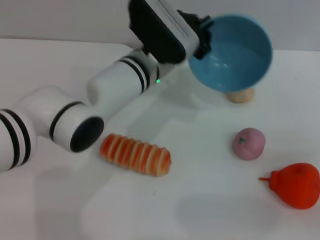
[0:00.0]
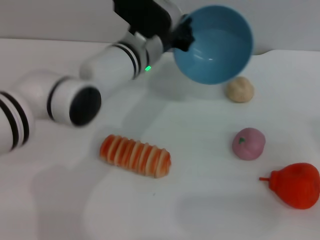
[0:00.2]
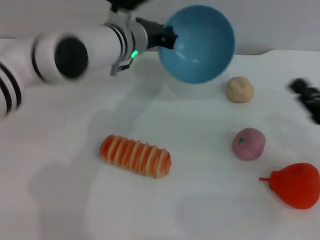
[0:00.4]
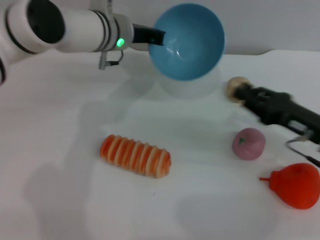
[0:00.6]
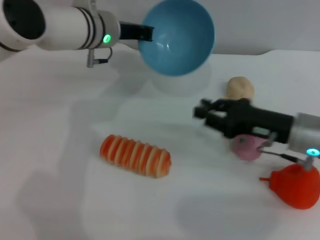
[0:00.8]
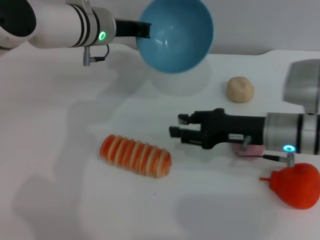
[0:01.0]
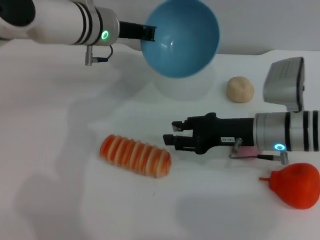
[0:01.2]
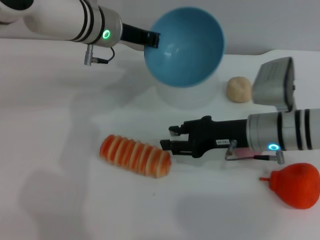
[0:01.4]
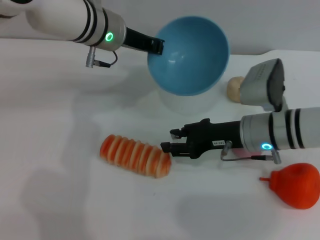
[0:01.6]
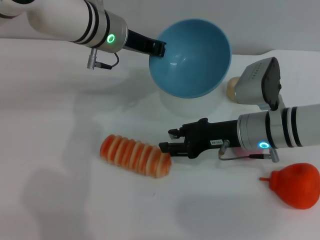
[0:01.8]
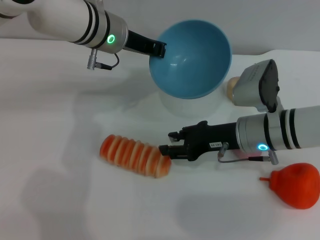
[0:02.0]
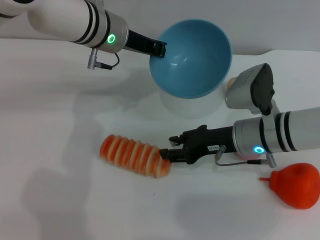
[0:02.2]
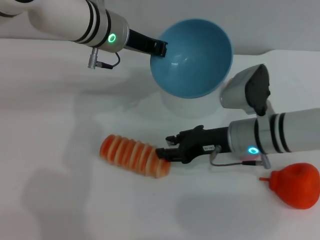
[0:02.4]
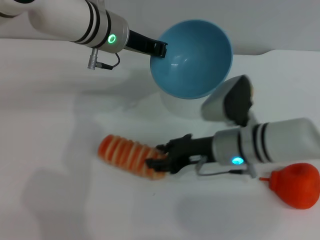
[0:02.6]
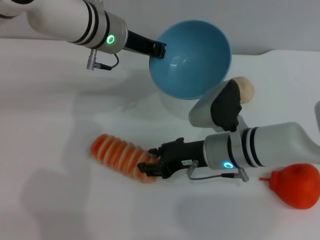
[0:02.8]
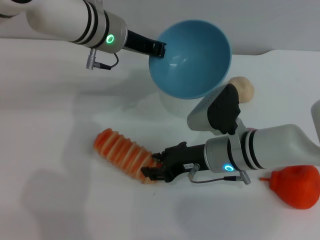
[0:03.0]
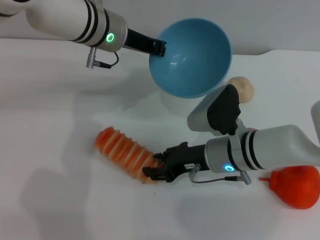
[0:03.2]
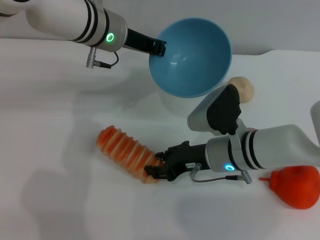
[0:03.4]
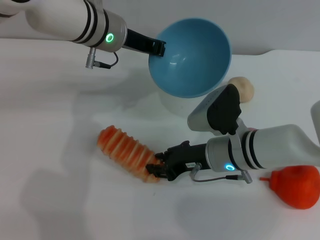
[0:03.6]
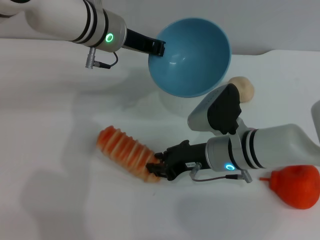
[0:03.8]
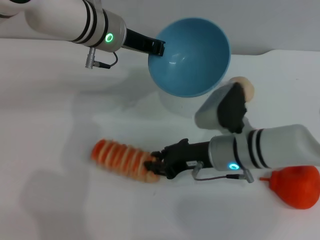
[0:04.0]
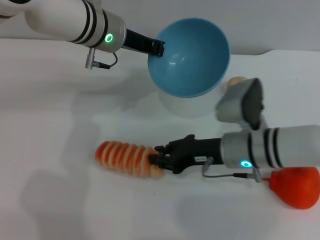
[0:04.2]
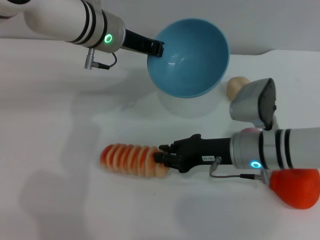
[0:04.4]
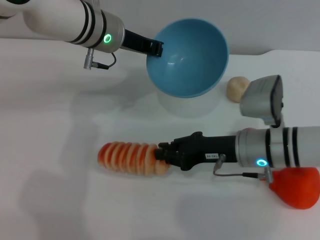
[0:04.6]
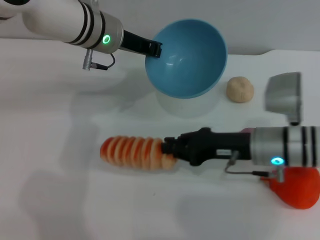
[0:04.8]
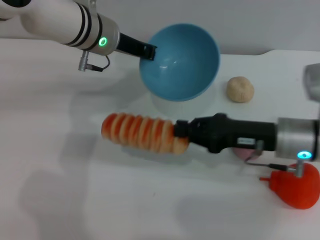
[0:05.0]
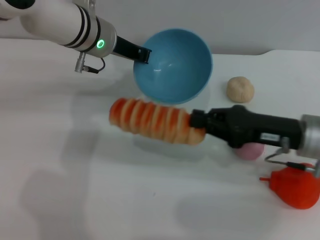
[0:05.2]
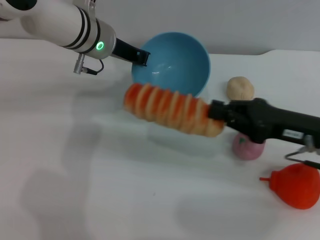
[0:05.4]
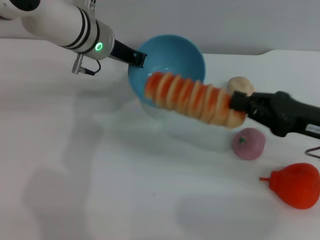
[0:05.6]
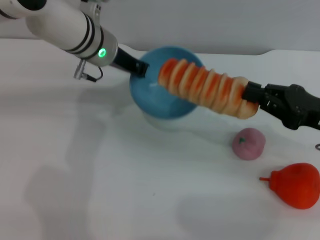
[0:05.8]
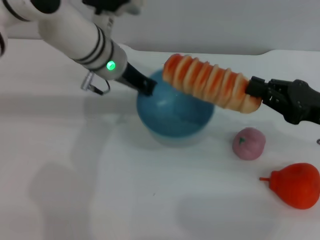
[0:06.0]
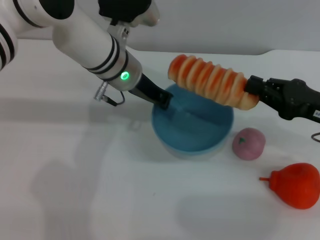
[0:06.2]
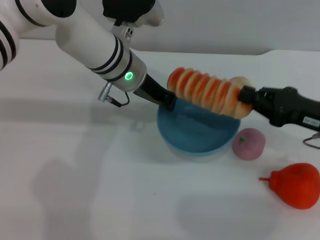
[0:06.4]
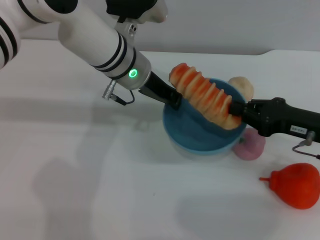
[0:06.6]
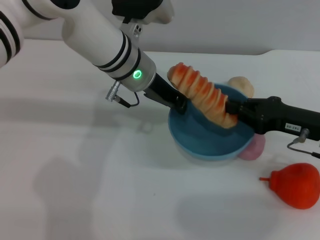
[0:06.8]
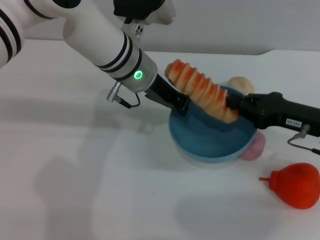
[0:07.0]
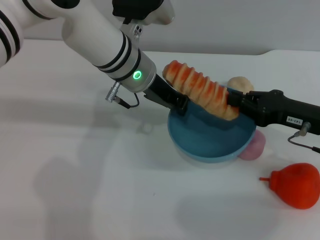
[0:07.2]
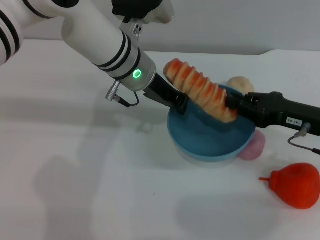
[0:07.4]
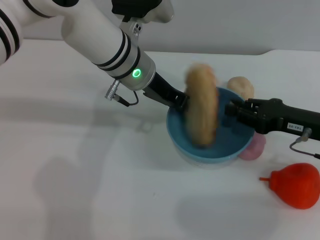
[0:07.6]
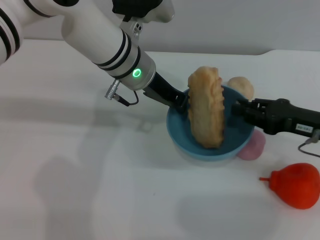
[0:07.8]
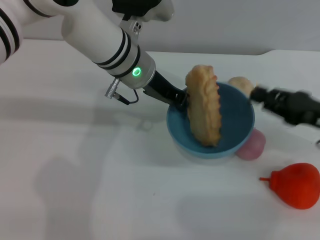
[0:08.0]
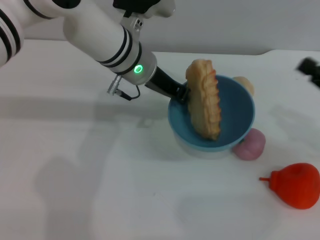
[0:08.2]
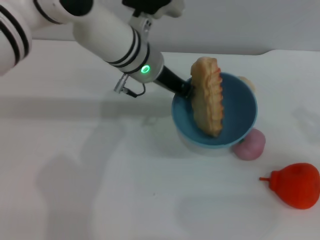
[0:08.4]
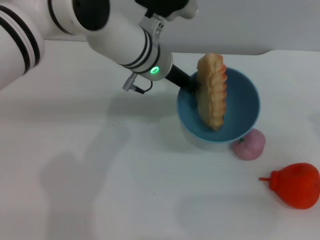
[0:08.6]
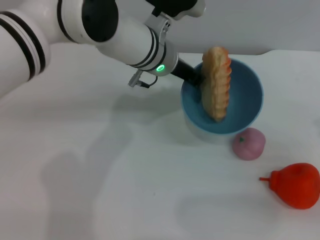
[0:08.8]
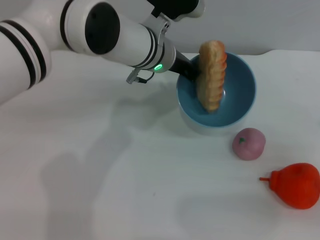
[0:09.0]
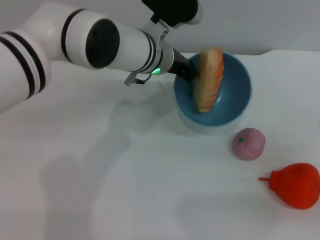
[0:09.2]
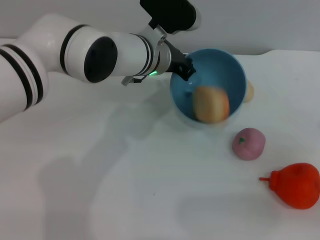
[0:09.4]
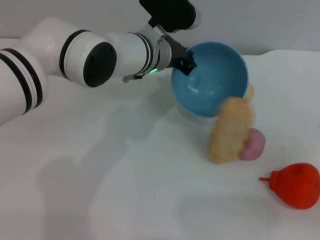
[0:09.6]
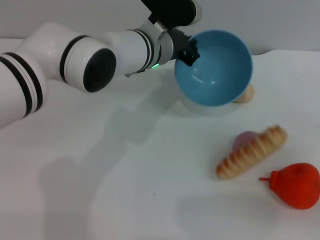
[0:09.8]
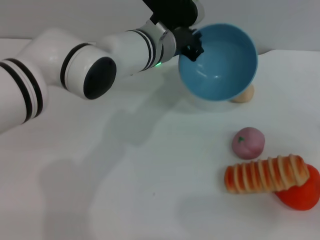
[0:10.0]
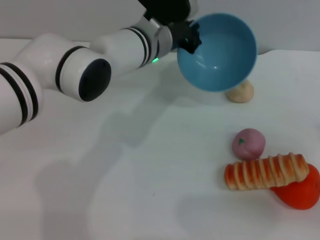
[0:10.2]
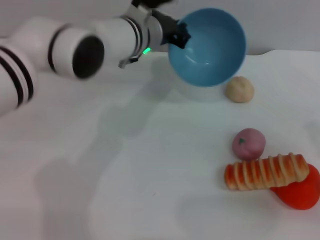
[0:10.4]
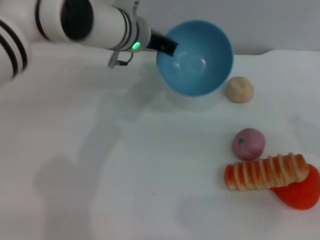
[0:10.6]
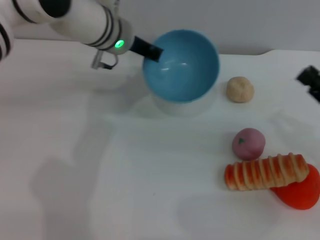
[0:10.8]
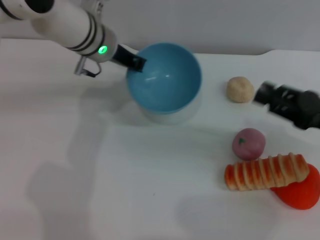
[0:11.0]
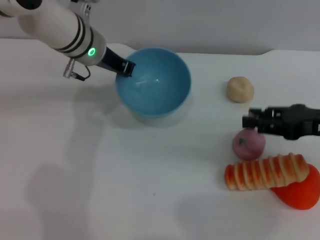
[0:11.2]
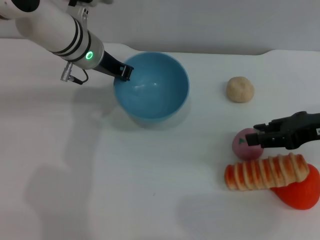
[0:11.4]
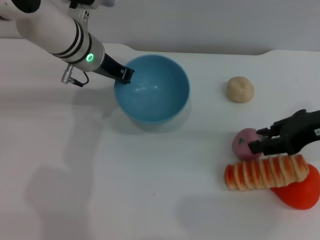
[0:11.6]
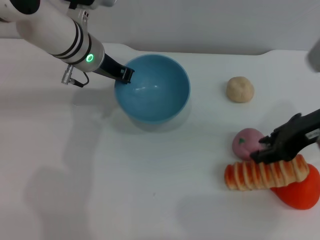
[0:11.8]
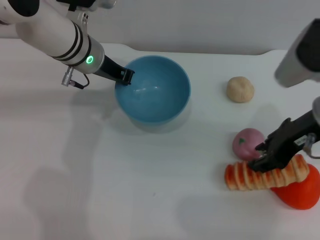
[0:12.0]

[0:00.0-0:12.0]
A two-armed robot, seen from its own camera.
Task of the whole recording: put the bread into the blue bowl and pour it out repeatedly.
Step, 0:00.2 to 0:05.2: Pick up the bread with the right gripper.
Step, 0:05.4 to 0:08.0: Place the bread into the bowl.
Step, 0:08.2 to 0:10.2: Pour the bread out of the bowl.
0:00.0 to 0:01.6: The right gripper heads to the left and forward, covering roughly 25 cm. Meanwhile the left gripper travels to the left and upward by about 10 cm.
0:01.6 to 0:03.0: The right gripper is displaced to the left by approximately 5 cm.
0:03.0 to 0:04.4: The right gripper closes.
0:04.4 to 0:06.0: The right gripper is displaced to the right and upward by roughly 15 cm, and closes.
0:07.6 to 0:09.0: The right gripper travels to the right and backward by approximately 15 cm.
0:10.4 to 0:12.0: The left gripper heads to the left, covering some 10 cm. Meanwhile the right gripper moves to the left, upward and forward, approximately 20 cm.

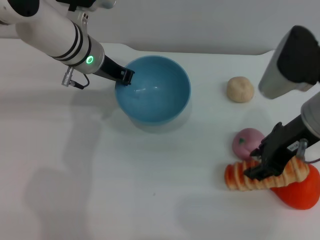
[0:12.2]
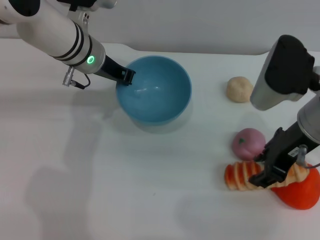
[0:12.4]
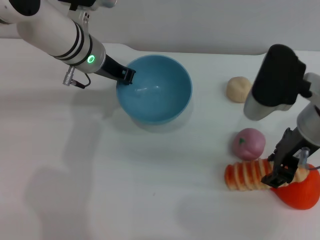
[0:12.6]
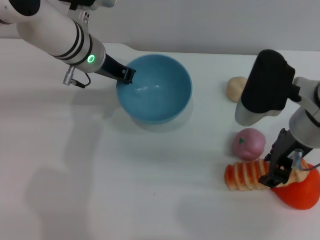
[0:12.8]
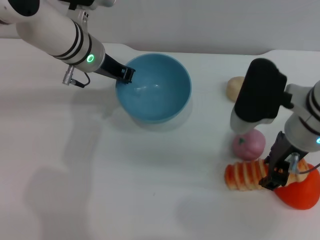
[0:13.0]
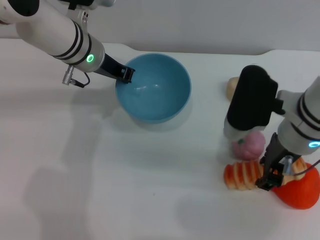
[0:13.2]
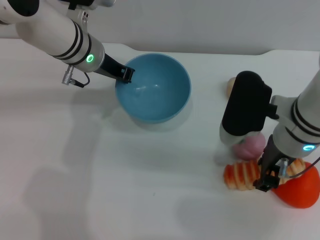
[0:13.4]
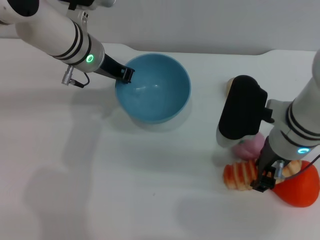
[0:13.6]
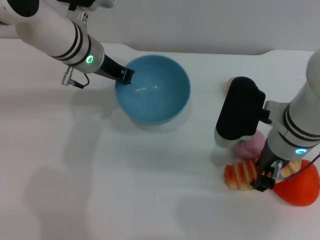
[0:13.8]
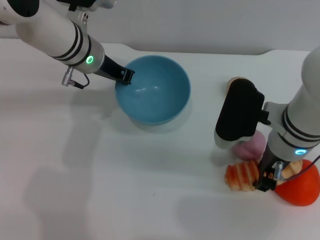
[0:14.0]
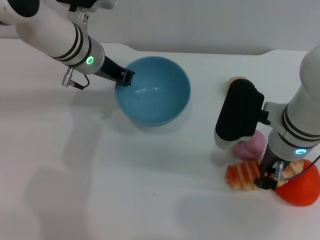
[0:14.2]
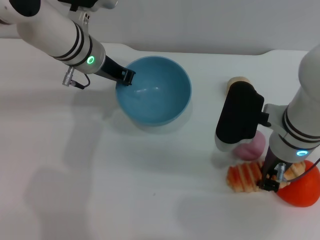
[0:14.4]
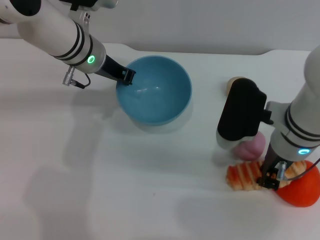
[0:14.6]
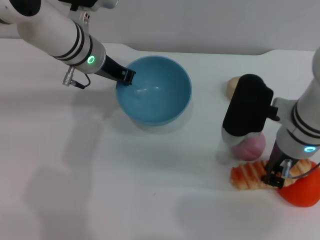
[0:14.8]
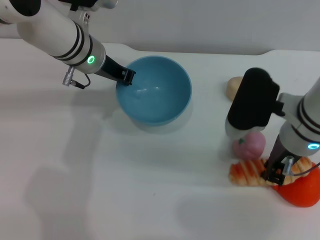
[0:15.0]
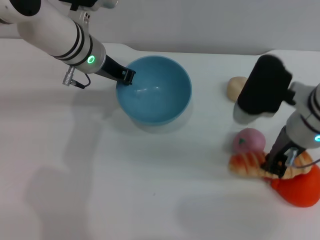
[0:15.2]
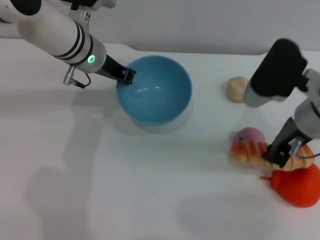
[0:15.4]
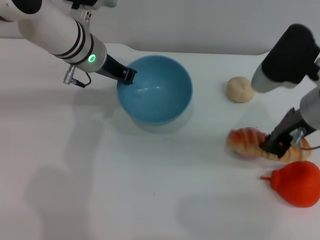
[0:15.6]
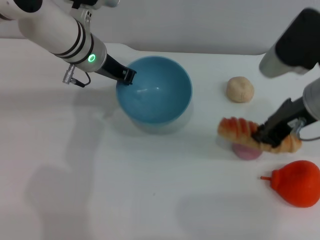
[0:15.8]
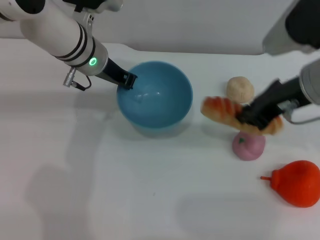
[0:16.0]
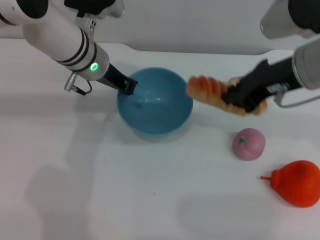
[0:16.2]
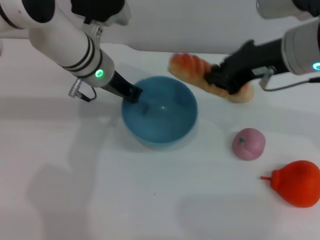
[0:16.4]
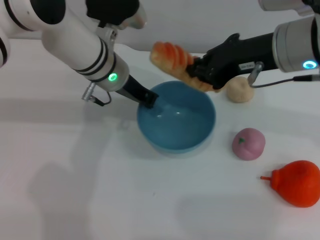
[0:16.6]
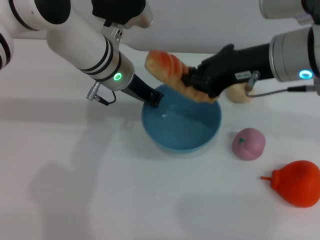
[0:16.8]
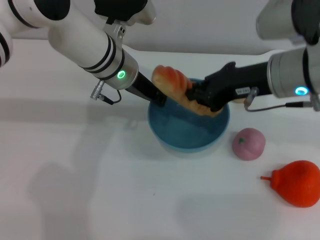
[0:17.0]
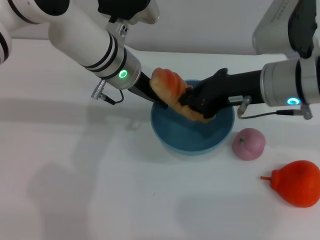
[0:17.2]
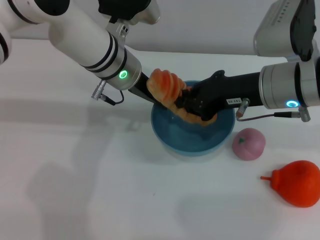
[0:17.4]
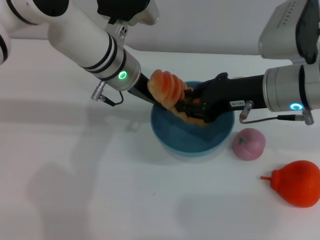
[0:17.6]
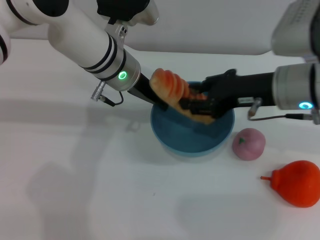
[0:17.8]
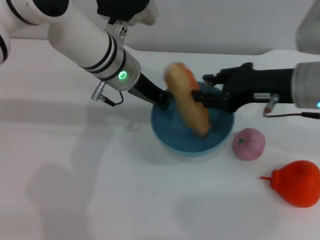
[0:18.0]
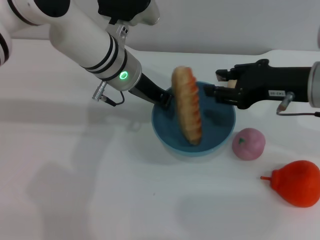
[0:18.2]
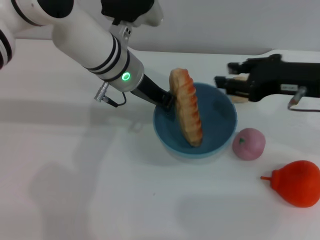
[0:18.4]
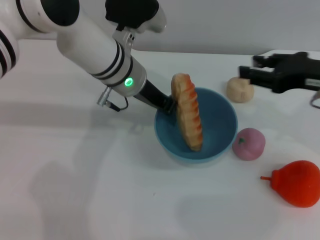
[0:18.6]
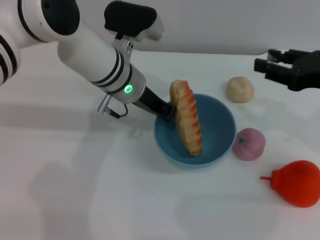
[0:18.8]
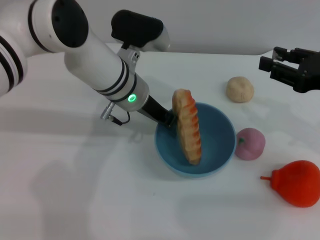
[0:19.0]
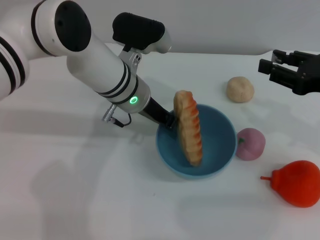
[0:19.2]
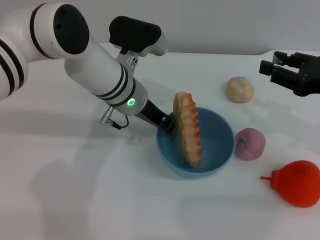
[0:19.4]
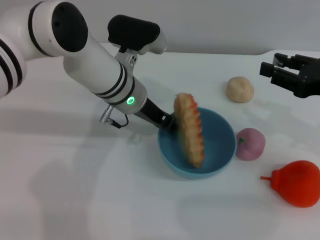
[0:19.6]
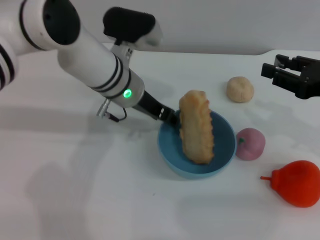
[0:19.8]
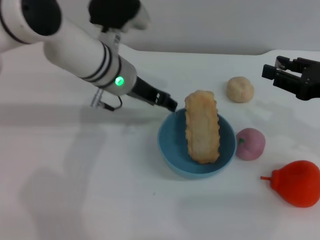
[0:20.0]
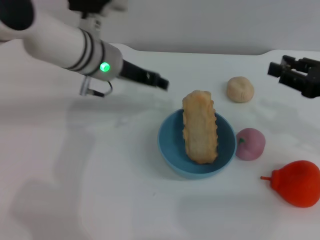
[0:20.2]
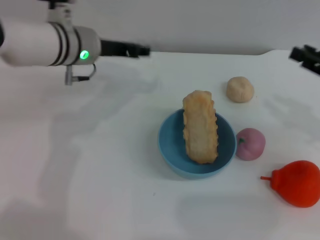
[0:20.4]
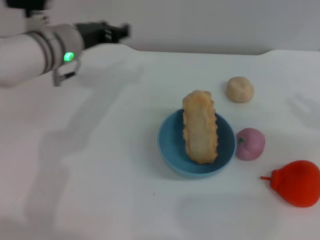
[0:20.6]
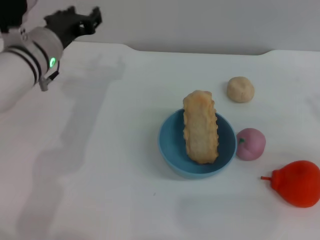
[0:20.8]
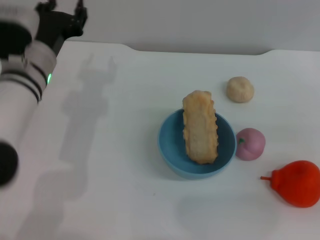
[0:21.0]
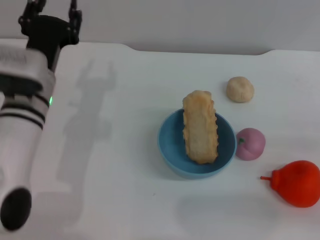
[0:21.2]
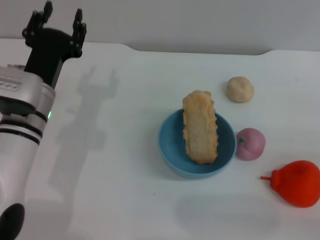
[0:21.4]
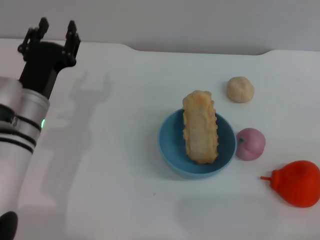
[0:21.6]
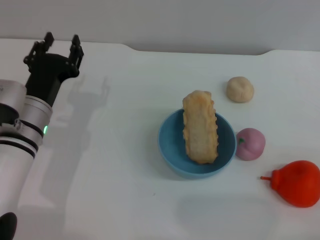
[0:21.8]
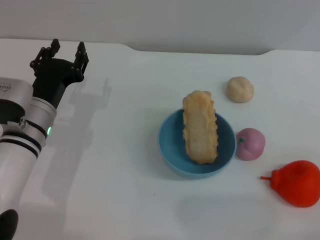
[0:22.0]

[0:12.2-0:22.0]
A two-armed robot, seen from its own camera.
Task of the whole recording: put the bread into the blue bowl and pour it out repeatedly.
Step, 0:12.2 to 0:15.8: Pick up the bread with the right gripper.
Step, 0:16.0 to 0:18.6: Place the bread into the bowl.
Step, 0:18.8 to 0:20.0: Place the bowl on the table.
0:12.2 to 0:13.6: The right gripper travels downward by about 5 cm.
0:13.6 to 0:15.0: The right gripper closes.
0:15.0 to 0:16.4: The right gripper heads upward, covering some 10 cm.
0:16.4 to 0:17.8: The right gripper goes roughly 5 cm downward, and opens.
0:17.8 to 0:19.2: The right gripper shifts approximately 10 cm to the right, and opens up.
0:19.2 to 0:20.6: The right gripper goes roughly 5 cm to the right. The left gripper heads to the left, covering about 10 cm, and opens up.
0:20.6 to 0:22.0: The left gripper is displaced downward and backward by about 15 cm, while the right gripper is displaced backward and downward by some 15 cm.
